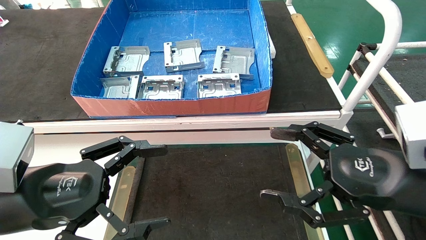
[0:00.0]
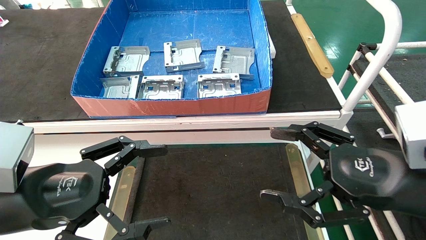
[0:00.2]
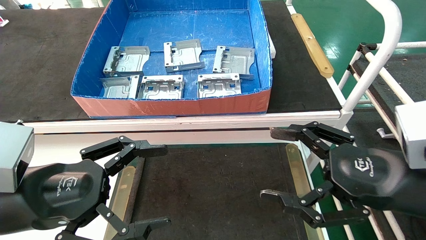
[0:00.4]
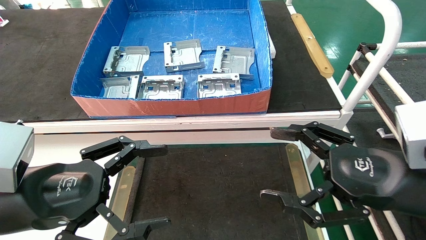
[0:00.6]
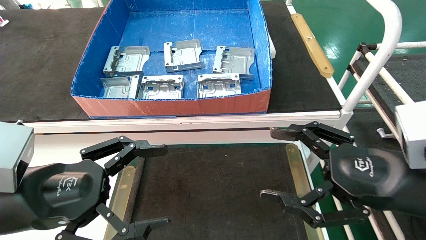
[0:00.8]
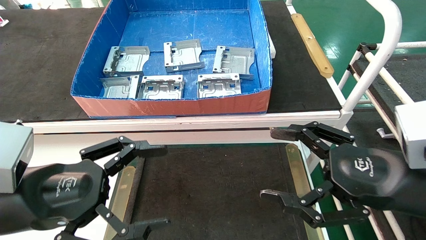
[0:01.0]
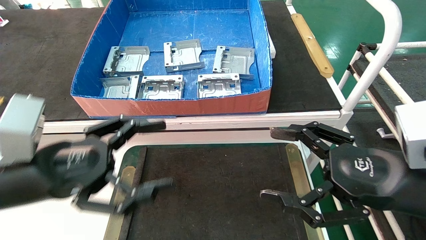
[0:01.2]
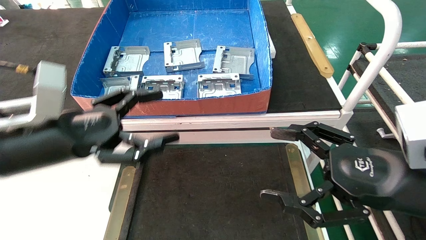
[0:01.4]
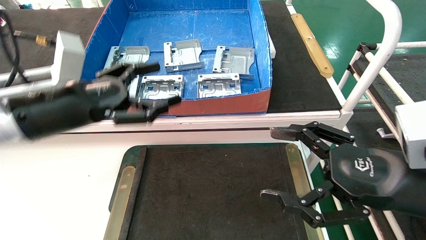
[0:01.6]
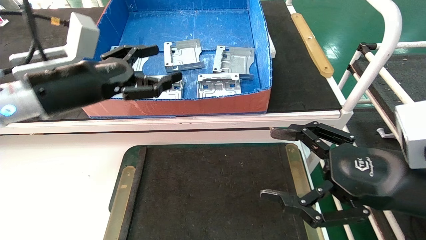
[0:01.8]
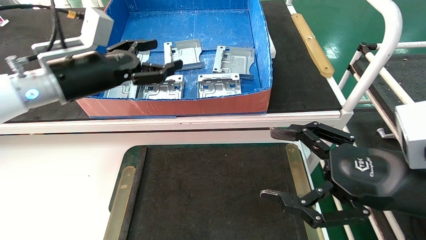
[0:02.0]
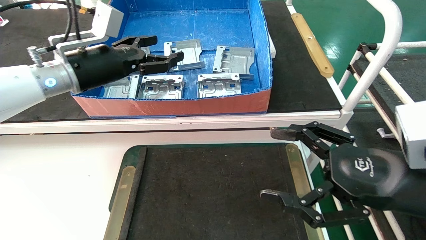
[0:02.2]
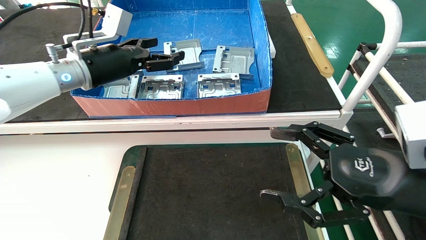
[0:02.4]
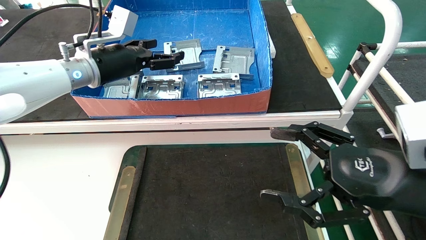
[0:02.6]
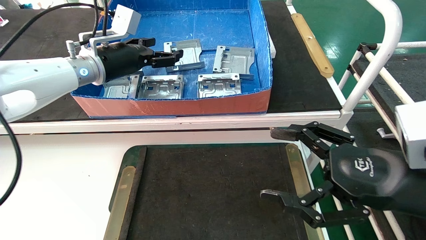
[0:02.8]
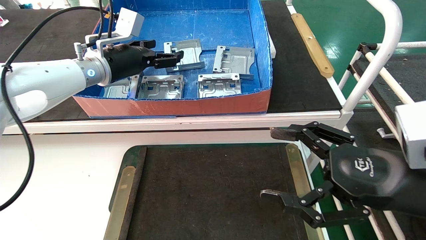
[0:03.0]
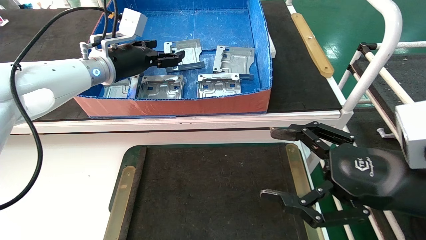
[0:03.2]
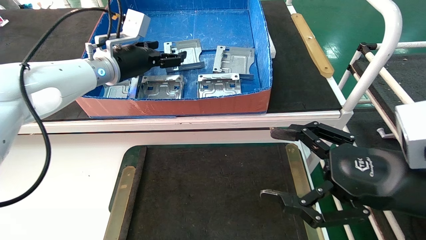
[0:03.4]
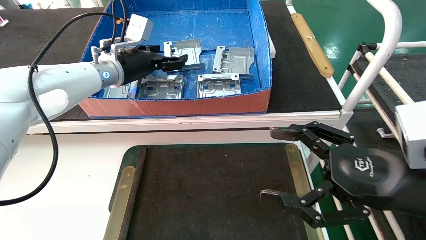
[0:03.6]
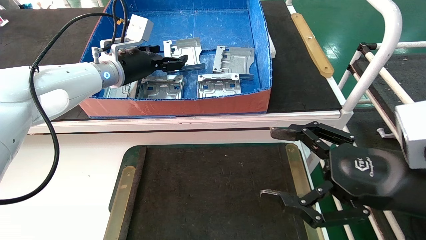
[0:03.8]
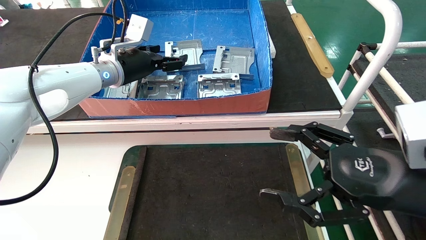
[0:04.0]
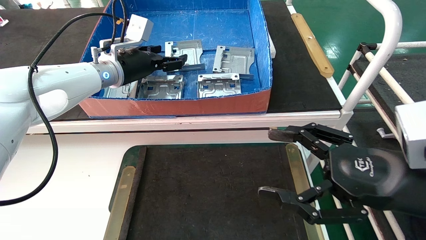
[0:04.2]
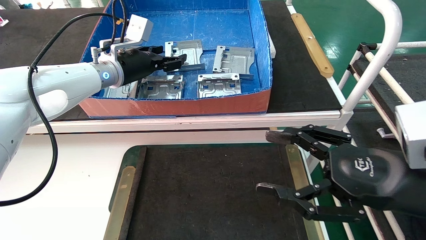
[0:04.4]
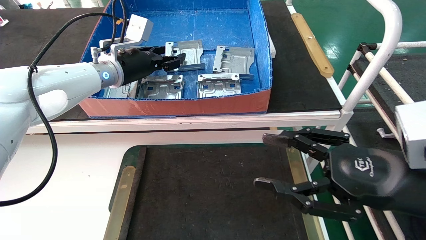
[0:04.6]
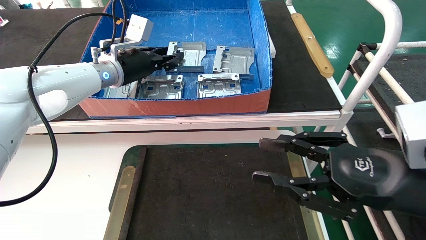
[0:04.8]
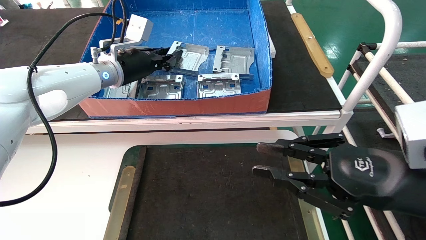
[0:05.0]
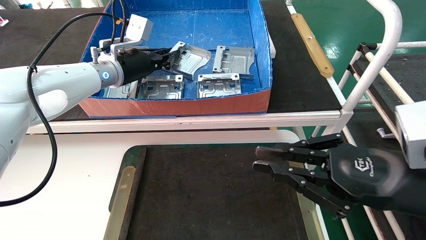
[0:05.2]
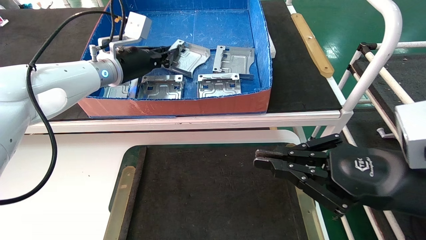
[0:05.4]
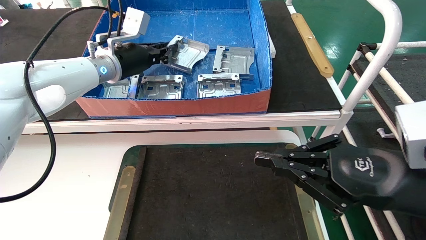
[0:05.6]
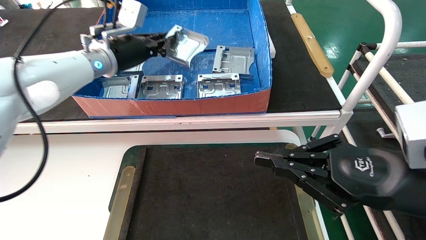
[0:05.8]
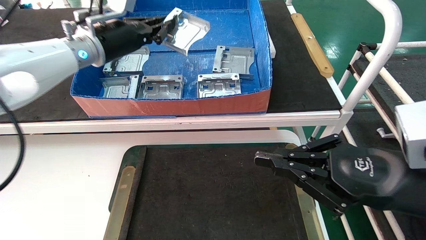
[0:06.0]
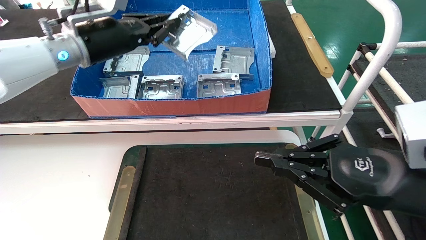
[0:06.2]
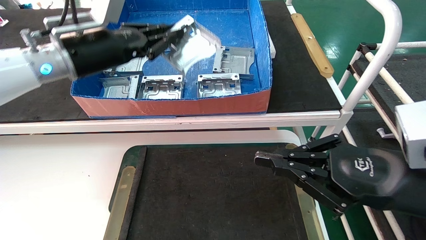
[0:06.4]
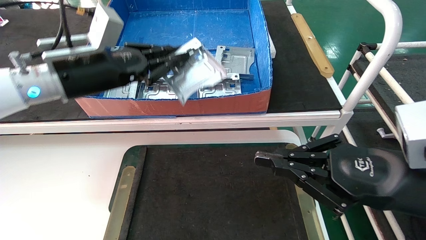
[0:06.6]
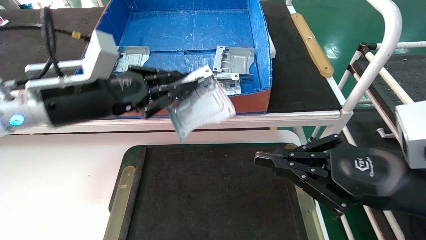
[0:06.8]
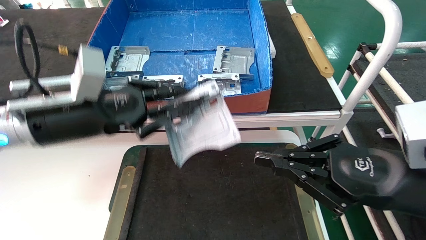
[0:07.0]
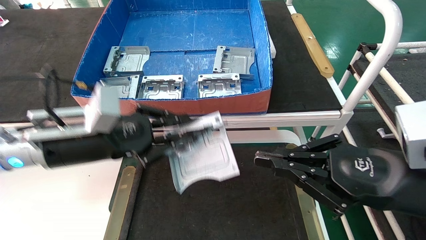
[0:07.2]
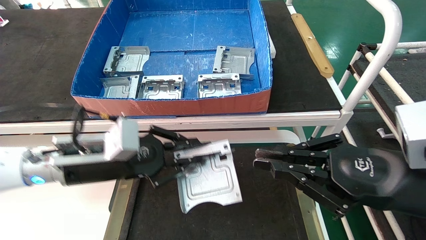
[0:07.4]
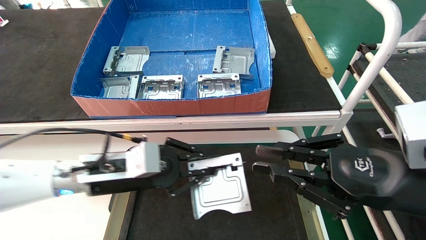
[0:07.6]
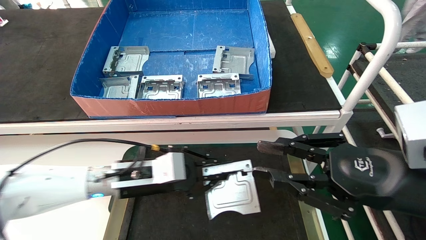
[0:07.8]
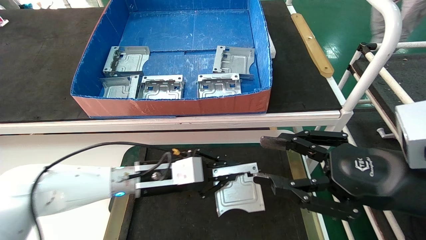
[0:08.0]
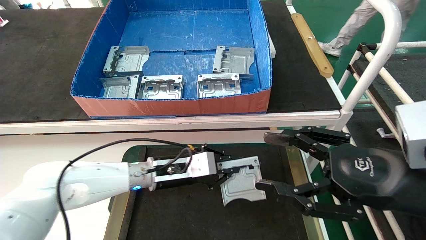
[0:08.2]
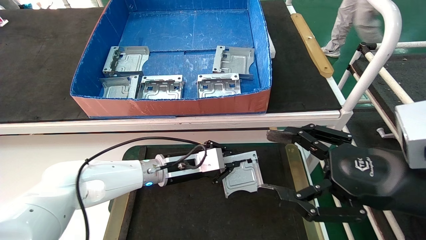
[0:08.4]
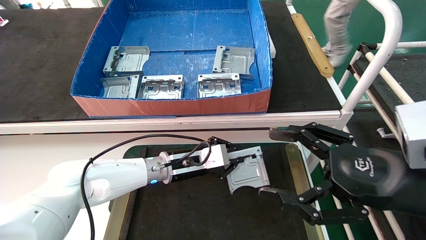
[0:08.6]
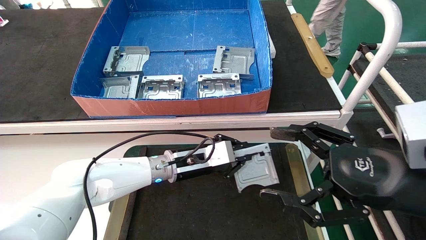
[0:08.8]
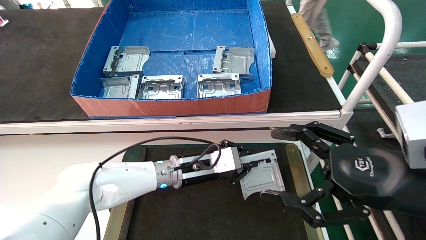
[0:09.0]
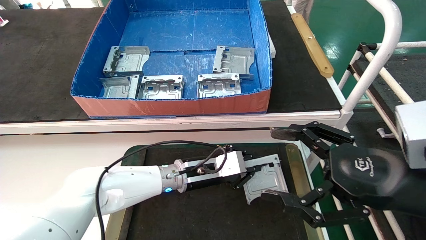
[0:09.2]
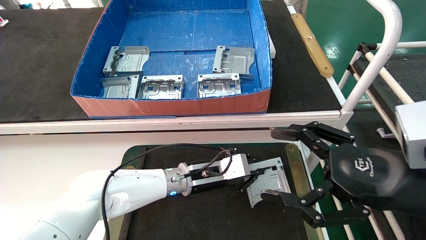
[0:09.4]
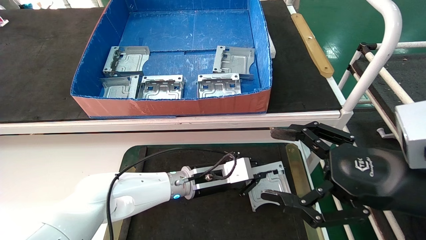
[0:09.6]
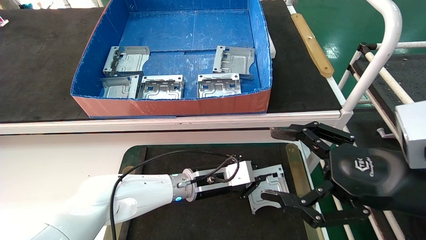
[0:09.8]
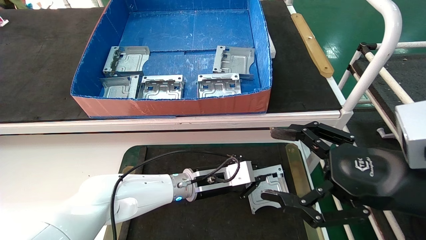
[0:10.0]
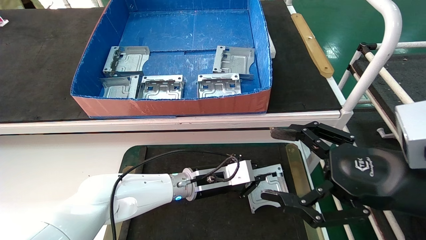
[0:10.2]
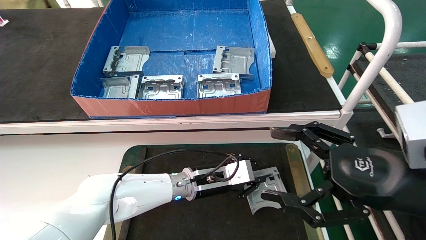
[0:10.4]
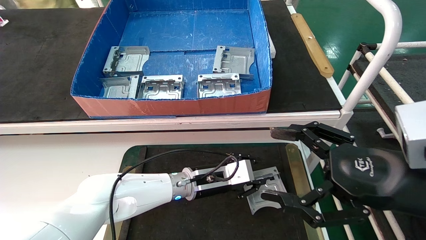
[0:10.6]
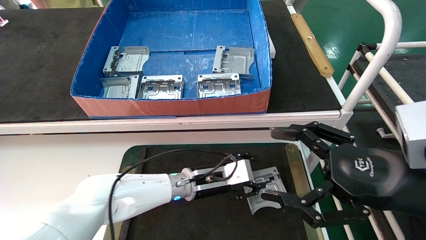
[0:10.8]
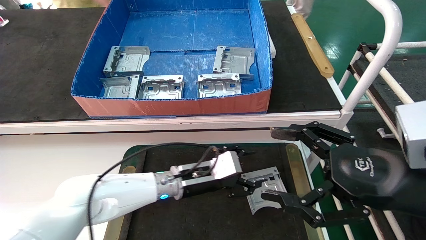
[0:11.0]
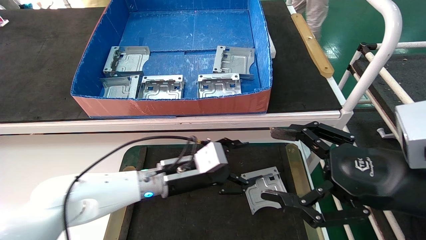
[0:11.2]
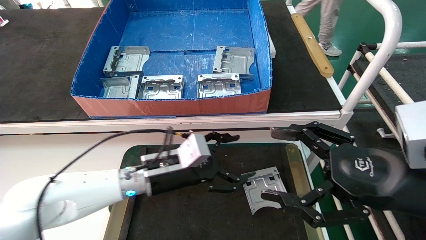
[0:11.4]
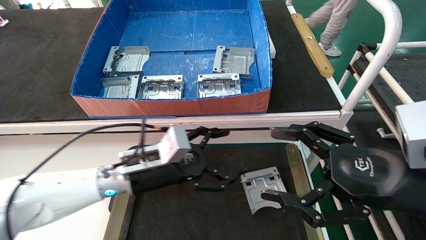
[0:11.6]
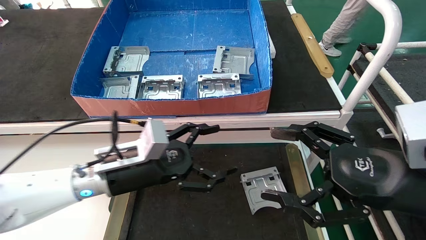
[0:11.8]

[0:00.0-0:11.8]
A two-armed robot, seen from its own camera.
Task of the whole recording: take the accessories out of the box and place them on the table.
Step, 0:01.4 to 0:05.0: Pick up the hard drive bracket from the feeding area.
Step, 0:05.2 to 0:10.6: Place the hard drive bracket into the box.
0:00.0 to 0:01.4: The left gripper goes some 5 cm forward.
0:01.4 to 0:03.0: The left gripper travels forward and upward by roughly 20 cm.
0:03.0 to 0:04.4: The grippers make only small movements.
0:04.4 to 0:06.0: The right gripper closes its fingers; the left gripper moves roughly 5 cm, and closes.
0:06.0 to 0:07.4: The left gripper moves downward and backward, about 20 cm.
0:07.4 to 0:08.8: The left gripper shifts some 20 cm to the right, forward and downward, while the right gripper opens its fingers.
0:08.8 to 0:10.4: The left gripper ends up about 5 cm from where it was.
0:10.4 to 0:11.8: The left gripper shifts roughly 15 cm to the left, backward and upward, and opens up.
